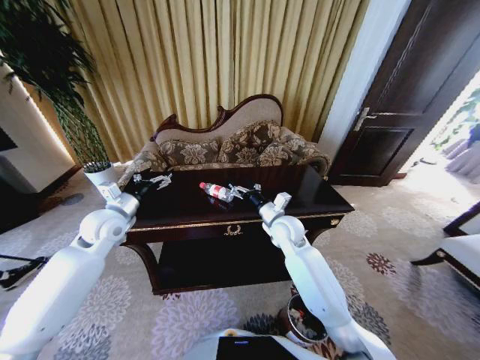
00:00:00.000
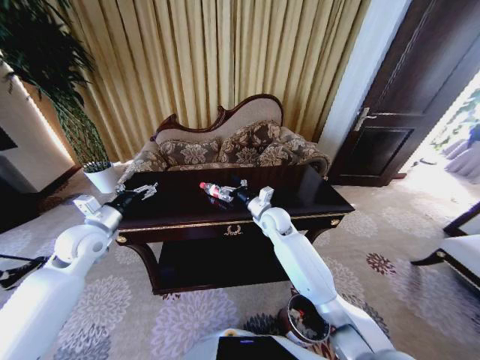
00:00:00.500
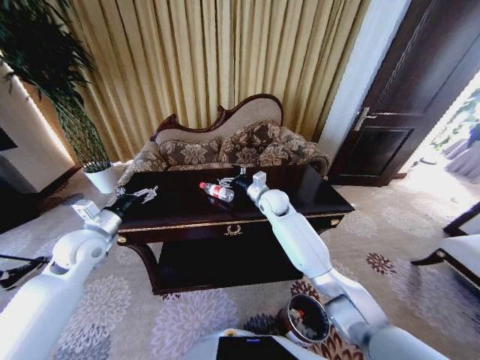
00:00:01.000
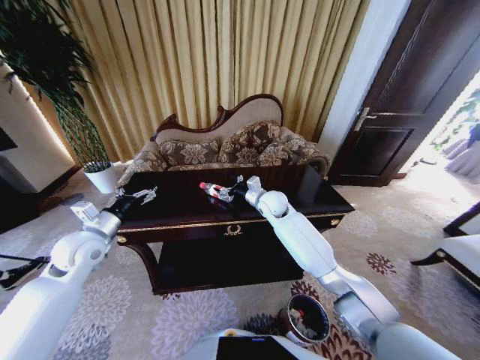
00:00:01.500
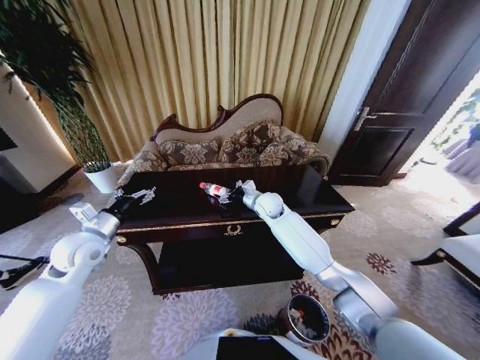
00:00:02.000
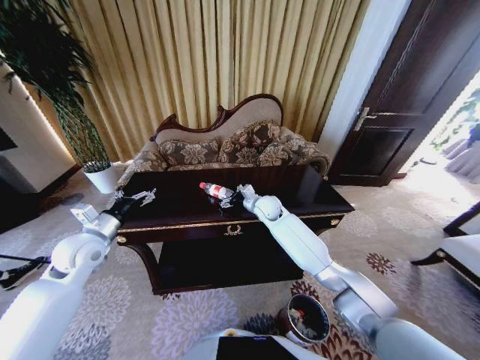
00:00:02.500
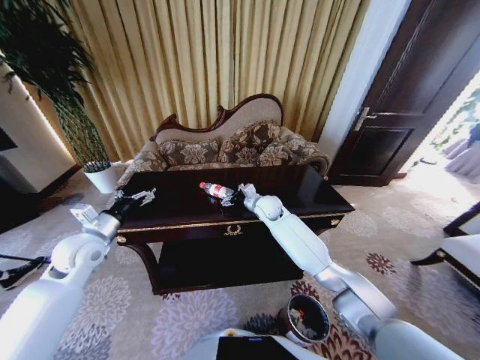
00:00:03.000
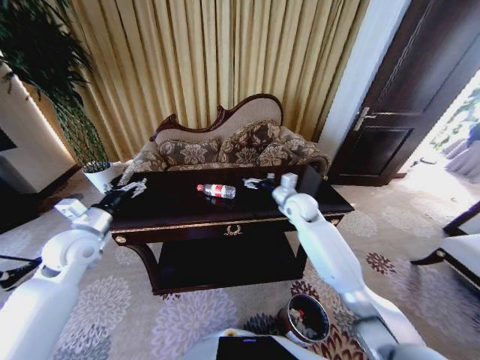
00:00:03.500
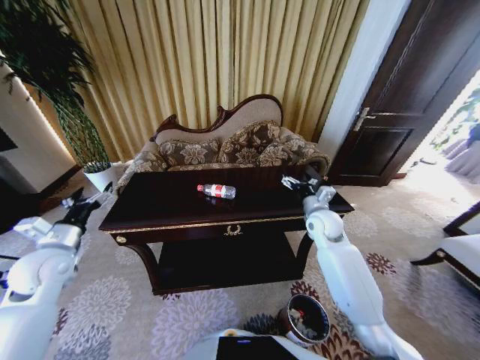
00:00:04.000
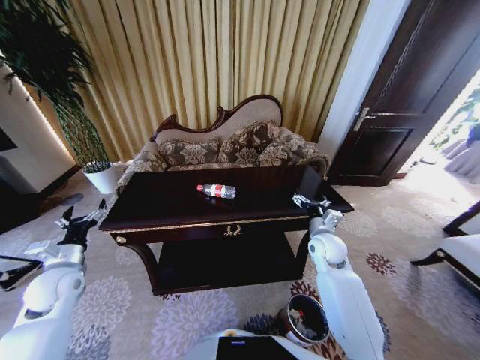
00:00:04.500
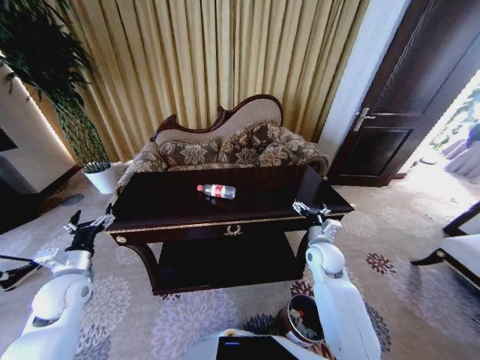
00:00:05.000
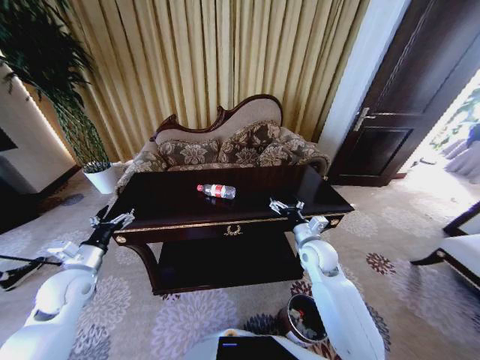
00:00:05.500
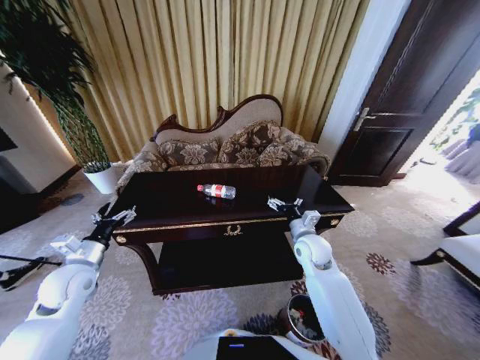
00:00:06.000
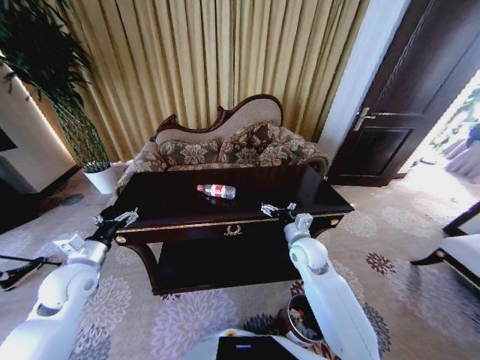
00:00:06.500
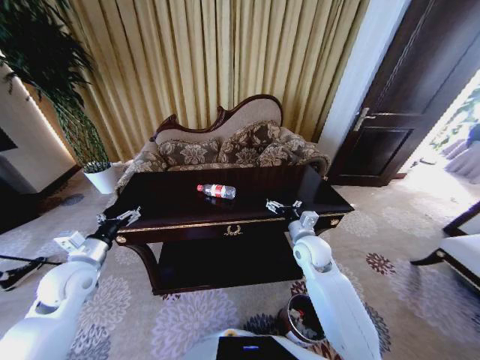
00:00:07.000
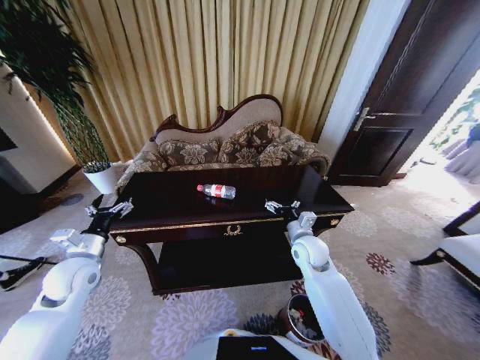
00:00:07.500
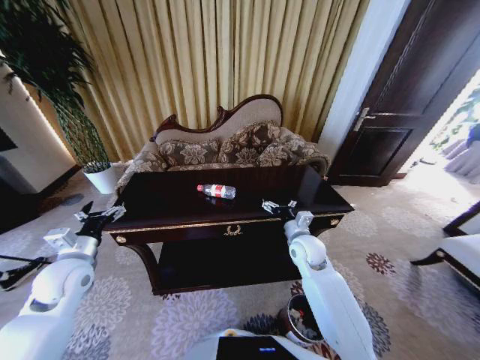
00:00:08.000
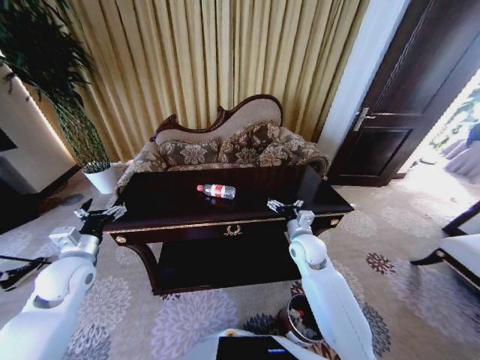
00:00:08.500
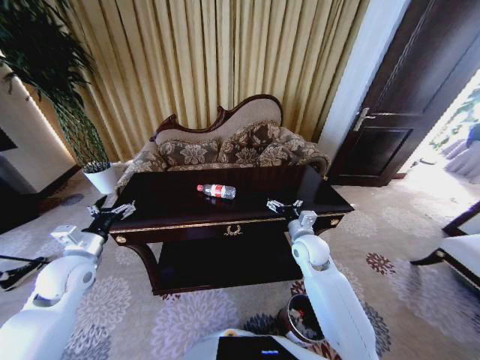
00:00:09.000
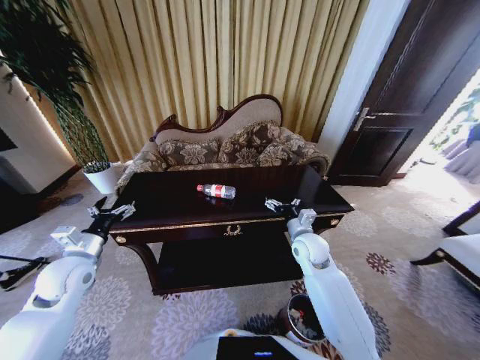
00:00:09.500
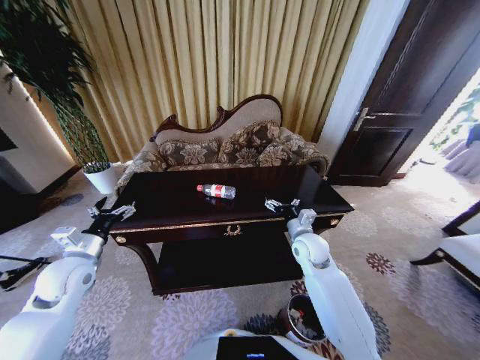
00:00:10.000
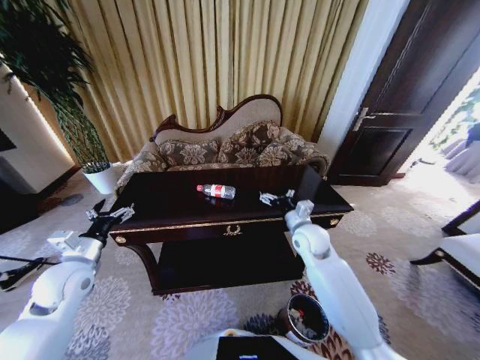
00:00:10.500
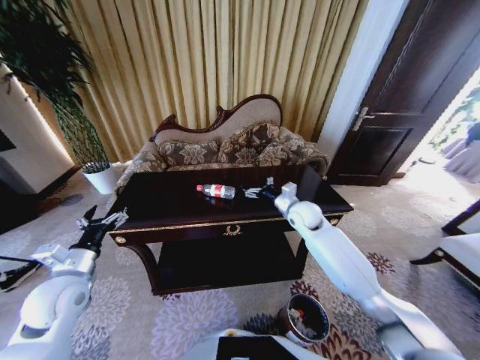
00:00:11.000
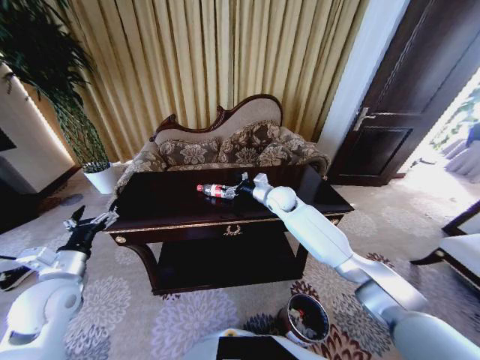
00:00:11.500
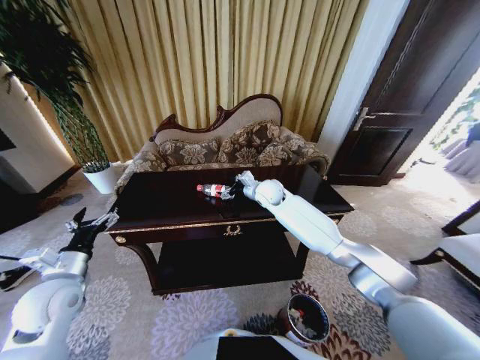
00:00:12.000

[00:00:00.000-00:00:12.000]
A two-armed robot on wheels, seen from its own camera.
Task of the whole recording: Move to the front of the table and place the trash on the table into the trash bin.
00:00:00.000 to 00:00:02.000: The left gripper shifts about 5 cm backward; the right gripper travels forward by some 10 cm.
00:00:02.000 to 00:00:04.000: The right gripper goes about 20 cm to the right and backward, while the left gripper goes some 5 cm to the left.
00:00:04.000 to 00:00:06.000: The right gripper travels backward by approximately 5 cm; the left gripper ends up approximately 5 cm from where it was.
00:00:06.000 to 00:00:10.000: The grippers stay close to where they were, moving slightly.
00:00:10.000 to 00:00:12.000: The right gripper heads forward and to the left, covering about 20 cm. The left gripper is displaced backward by approximately 5 cm.

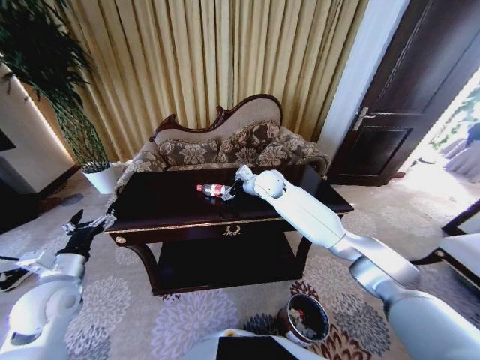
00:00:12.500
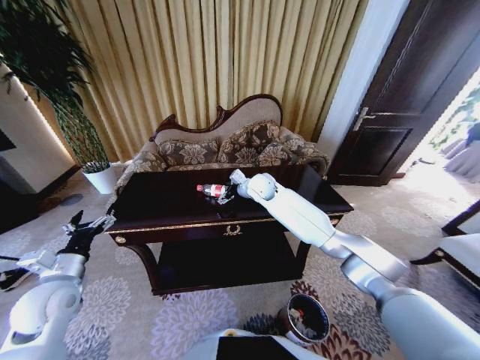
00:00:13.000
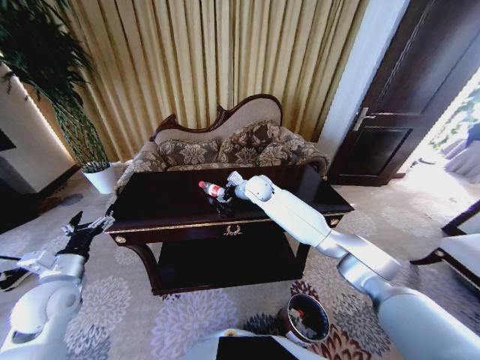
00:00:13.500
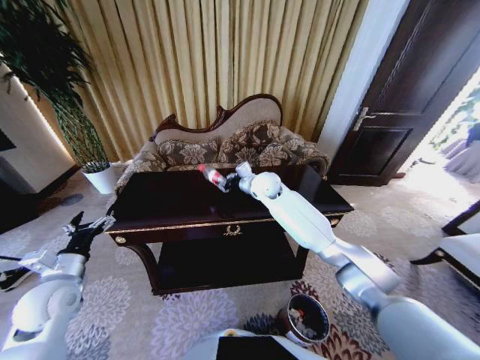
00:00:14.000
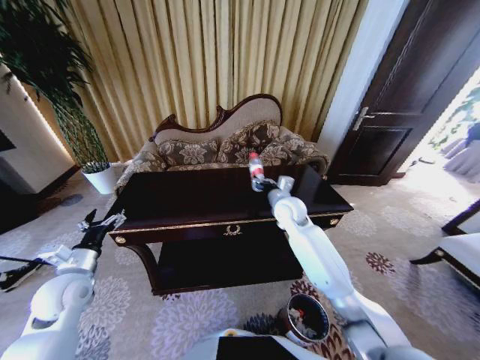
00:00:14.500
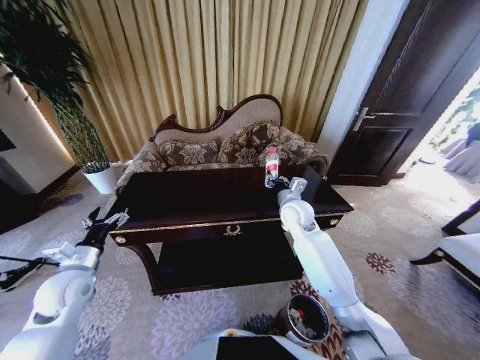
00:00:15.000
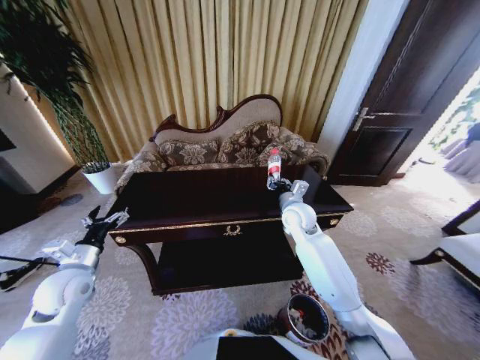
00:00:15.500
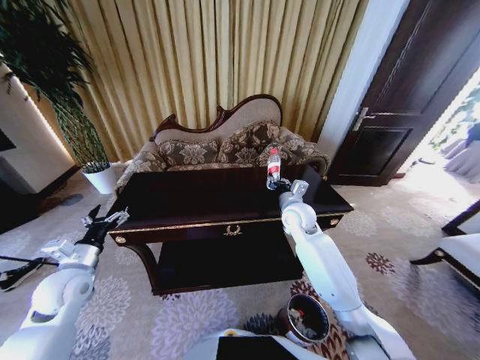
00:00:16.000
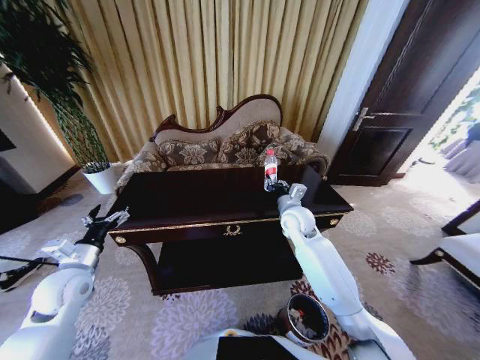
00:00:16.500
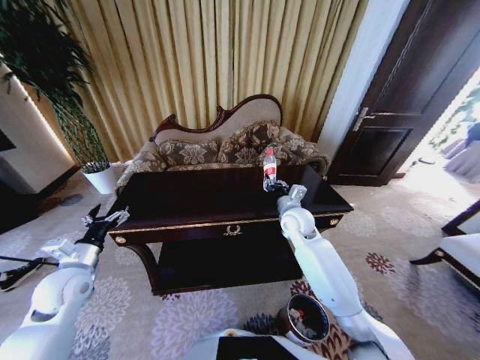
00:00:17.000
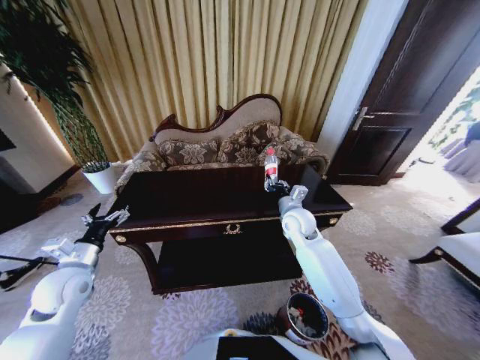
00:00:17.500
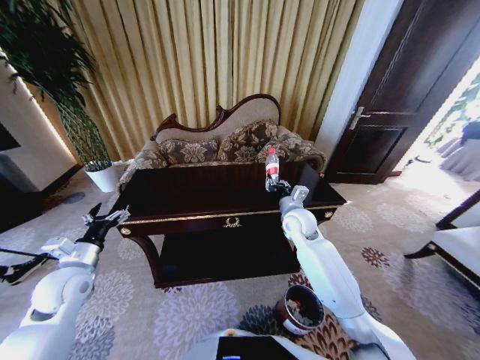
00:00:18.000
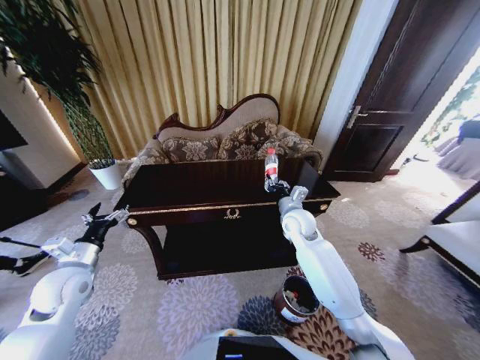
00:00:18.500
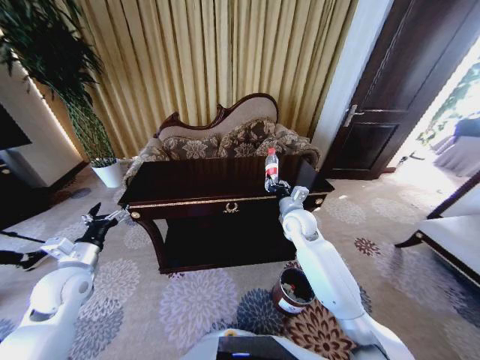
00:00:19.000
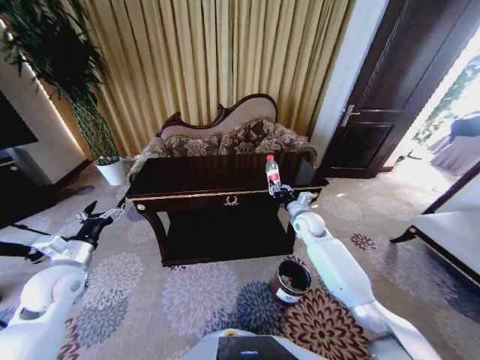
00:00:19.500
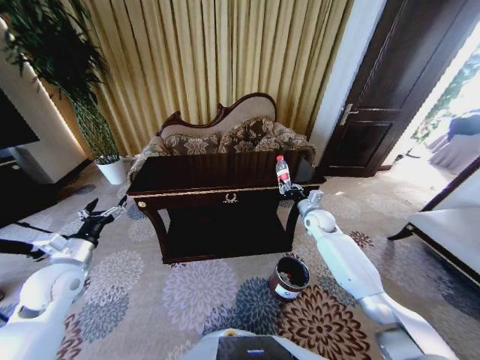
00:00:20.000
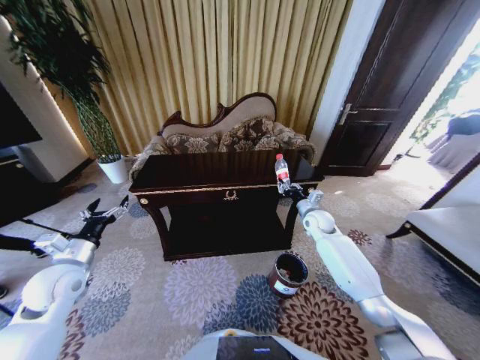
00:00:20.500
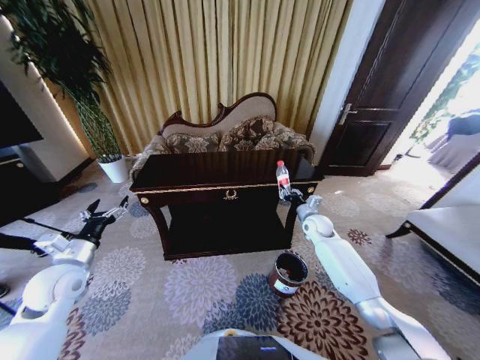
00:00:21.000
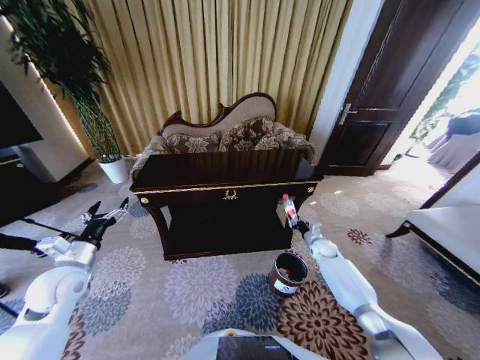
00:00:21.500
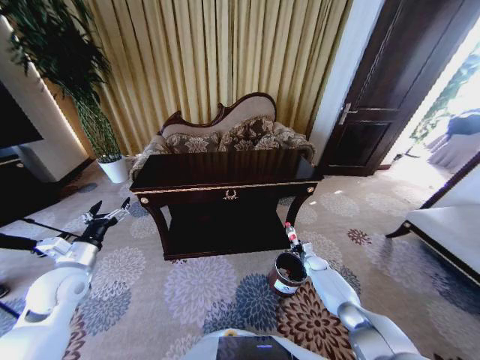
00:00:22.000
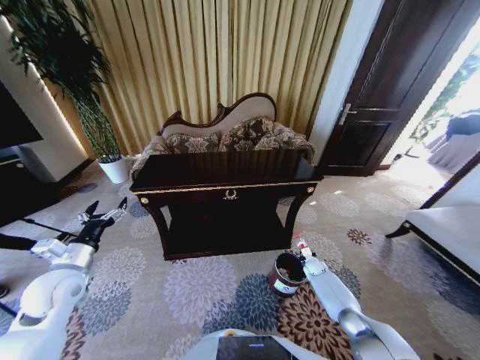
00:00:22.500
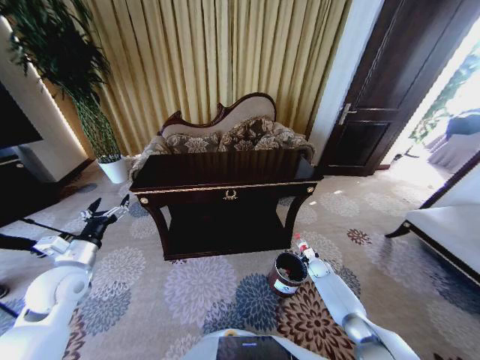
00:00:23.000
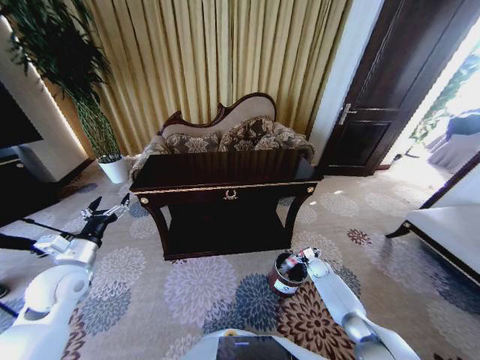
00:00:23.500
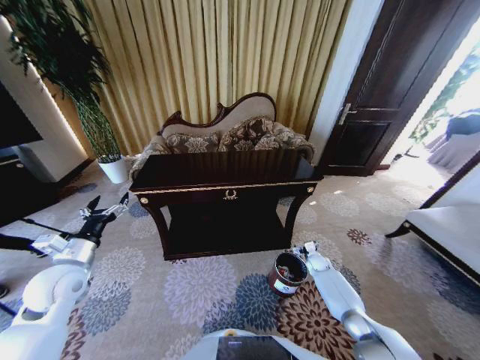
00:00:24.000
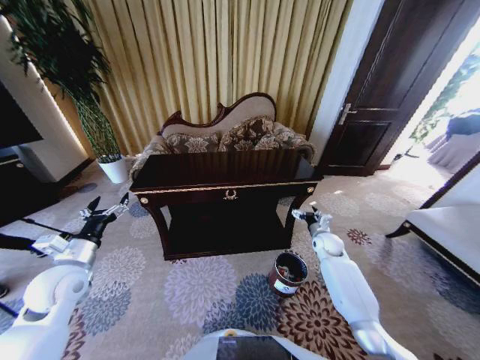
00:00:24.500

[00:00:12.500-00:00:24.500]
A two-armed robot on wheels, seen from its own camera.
Task of the whole recording: Move to the front of the table and place the trash on the table into the trash bin.
00:00:12.500 to 00:00:14.500: The right gripper goes roughly 10 cm backward, to the right and downward, and closes its fingers.
00:00:14.500 to 00:00:16.500: There are only small adjustments of the grippers.
00:00:18.500 to 00:00:20.500: The right gripper travels to the right, downward and forward by about 15 cm.
00:00:20.500 to 00:00:22.500: The right gripper shifts approximately 25 cm downward.
00:00:22.500 to 00:00:24.500: The right gripper is displaced upward by roughly 15 cm, and opens its fingers.

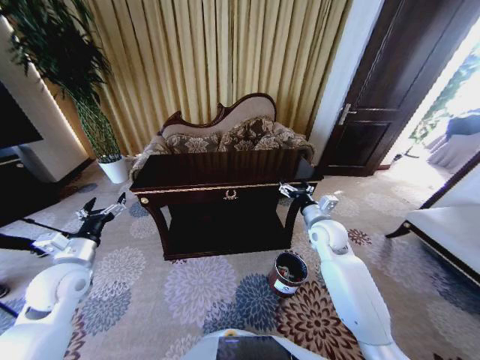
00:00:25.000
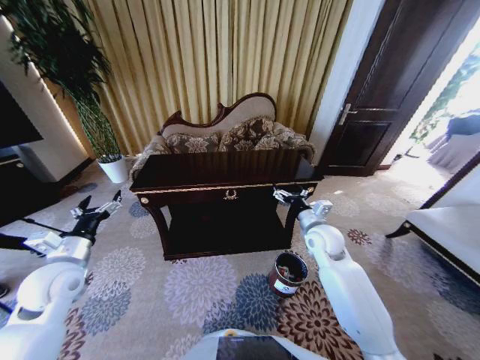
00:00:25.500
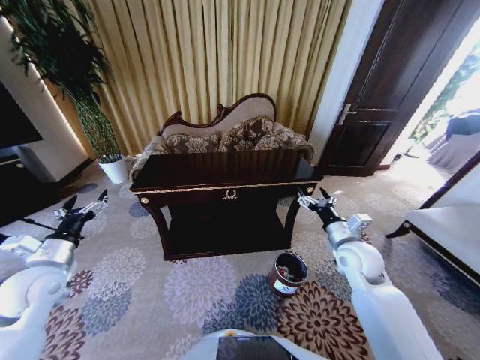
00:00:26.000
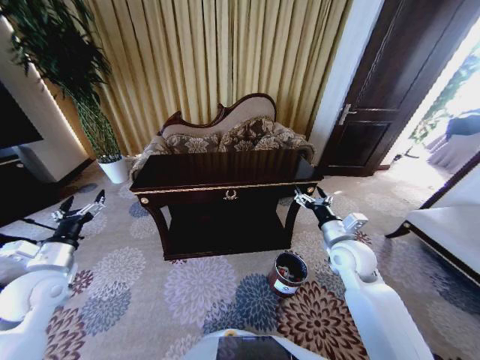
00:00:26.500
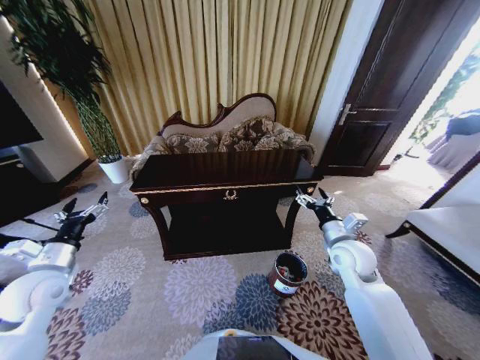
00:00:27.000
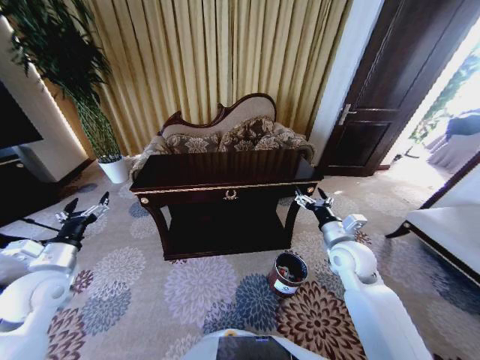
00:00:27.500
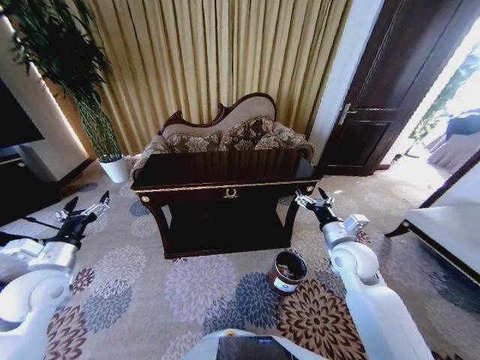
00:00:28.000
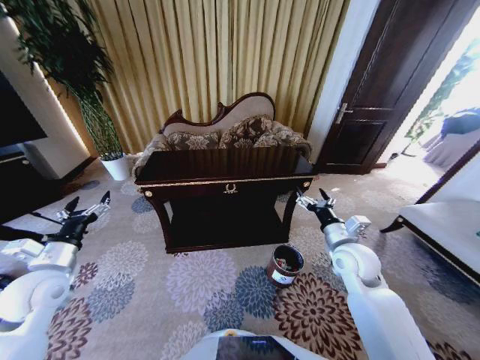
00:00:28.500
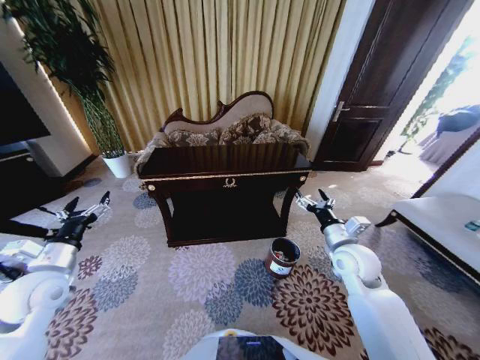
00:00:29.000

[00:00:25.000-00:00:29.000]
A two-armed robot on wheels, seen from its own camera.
Task of the whole recording: Move to the front of the table and place the trash on the table into the trash bin.
00:00:25.000 to 00:00:27.000: The right gripper travels backward by roughly 5 cm.
